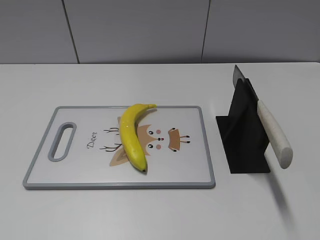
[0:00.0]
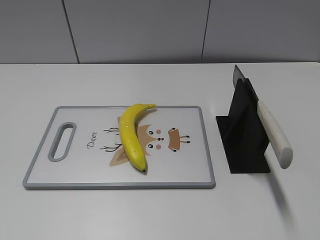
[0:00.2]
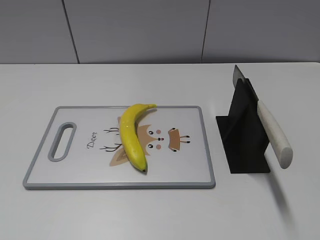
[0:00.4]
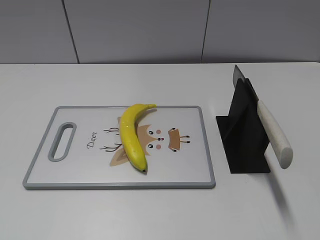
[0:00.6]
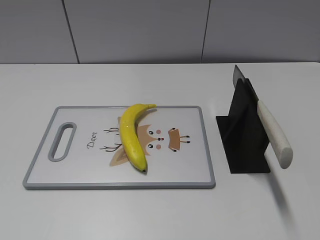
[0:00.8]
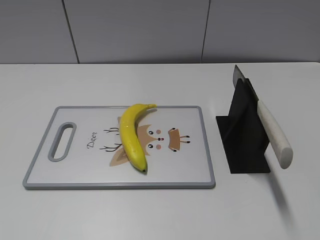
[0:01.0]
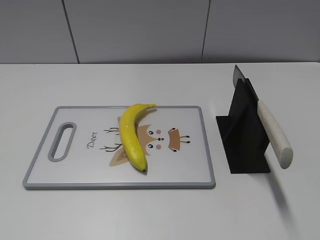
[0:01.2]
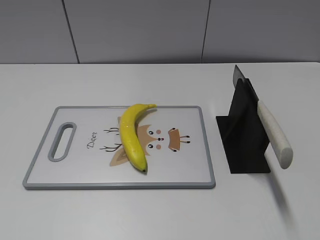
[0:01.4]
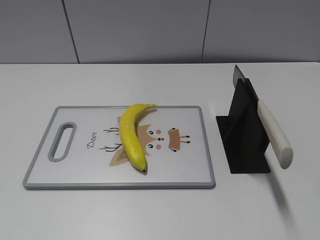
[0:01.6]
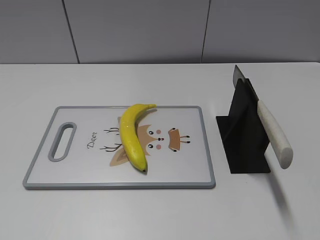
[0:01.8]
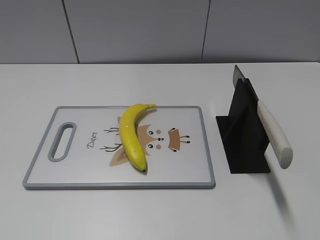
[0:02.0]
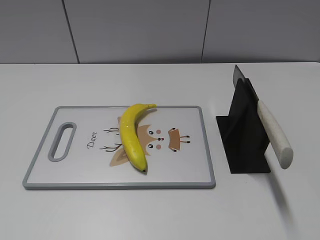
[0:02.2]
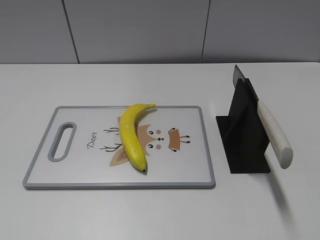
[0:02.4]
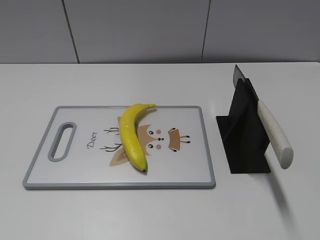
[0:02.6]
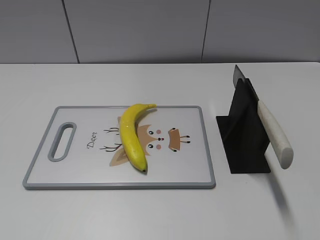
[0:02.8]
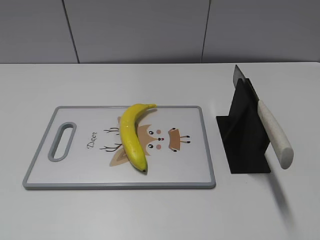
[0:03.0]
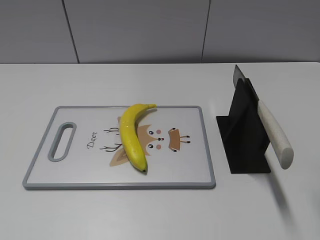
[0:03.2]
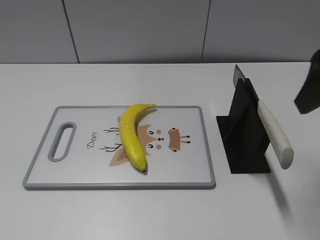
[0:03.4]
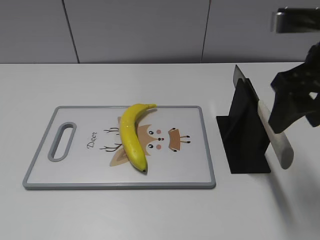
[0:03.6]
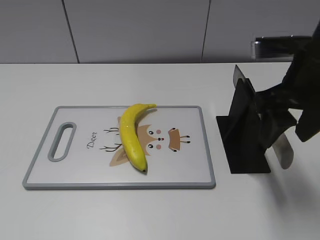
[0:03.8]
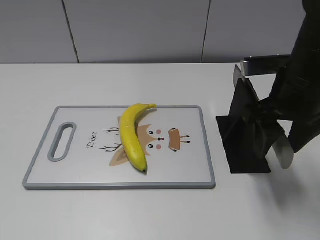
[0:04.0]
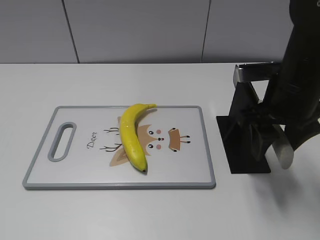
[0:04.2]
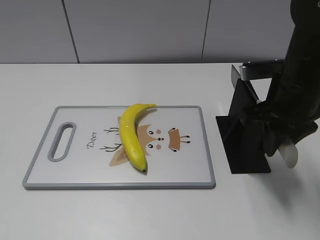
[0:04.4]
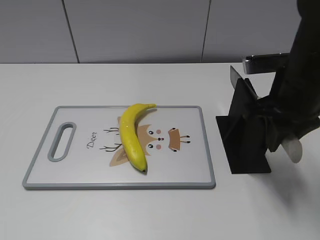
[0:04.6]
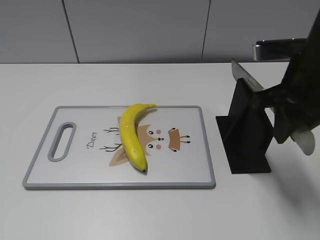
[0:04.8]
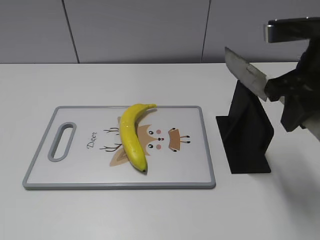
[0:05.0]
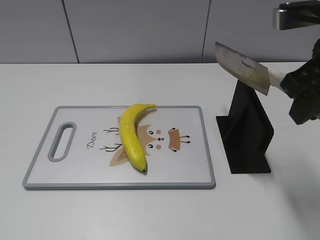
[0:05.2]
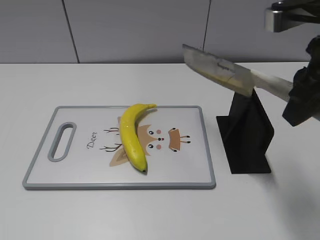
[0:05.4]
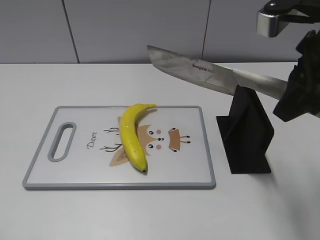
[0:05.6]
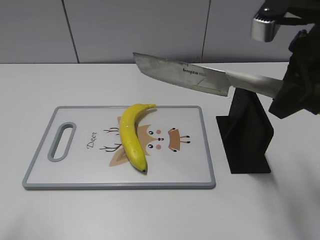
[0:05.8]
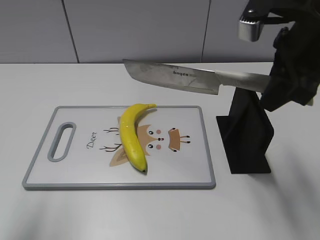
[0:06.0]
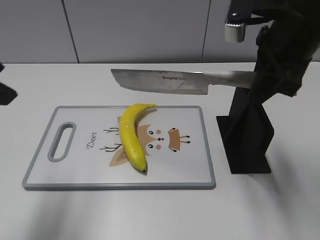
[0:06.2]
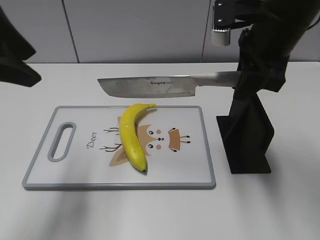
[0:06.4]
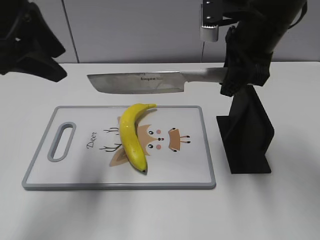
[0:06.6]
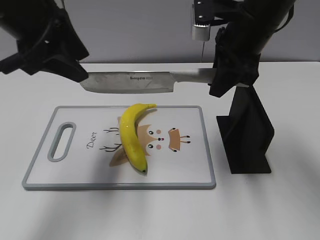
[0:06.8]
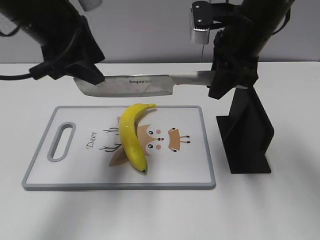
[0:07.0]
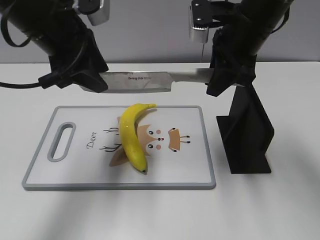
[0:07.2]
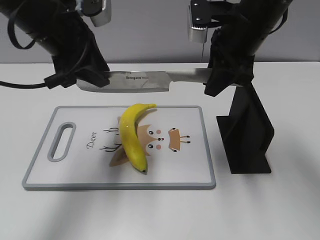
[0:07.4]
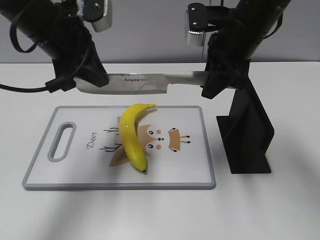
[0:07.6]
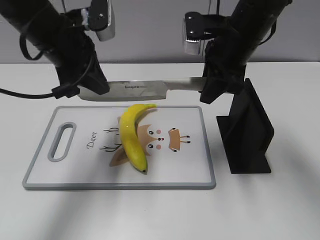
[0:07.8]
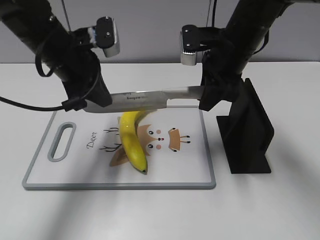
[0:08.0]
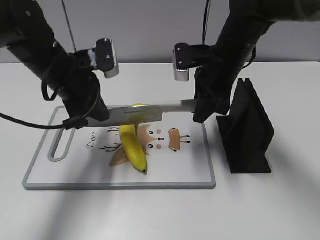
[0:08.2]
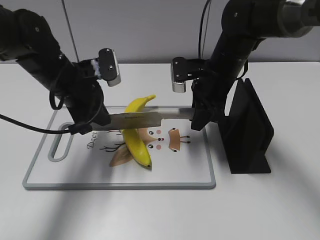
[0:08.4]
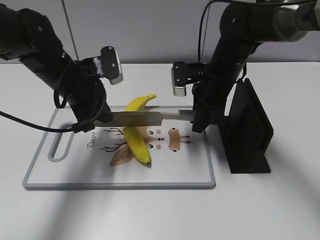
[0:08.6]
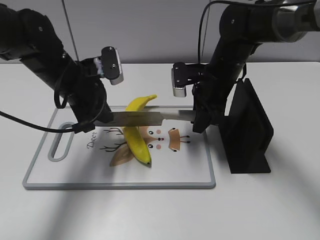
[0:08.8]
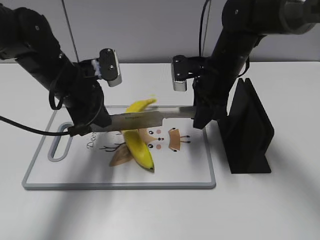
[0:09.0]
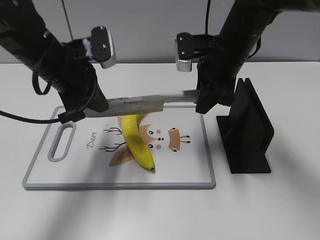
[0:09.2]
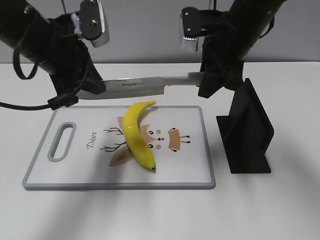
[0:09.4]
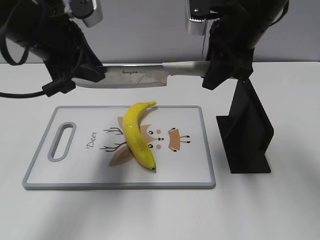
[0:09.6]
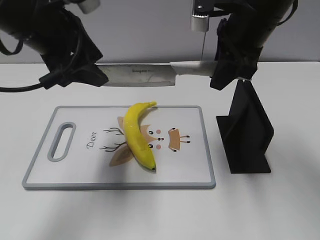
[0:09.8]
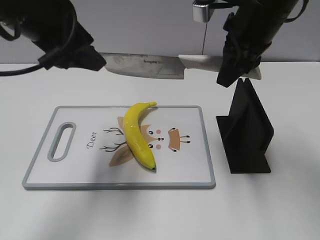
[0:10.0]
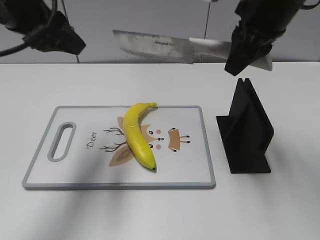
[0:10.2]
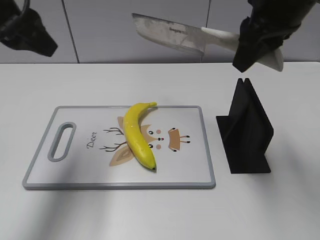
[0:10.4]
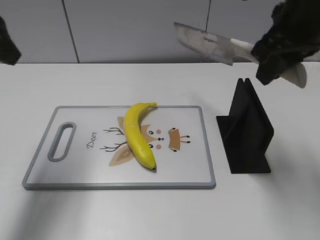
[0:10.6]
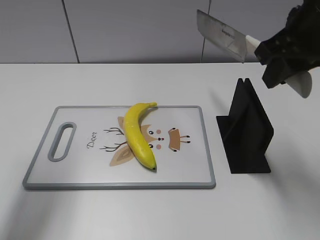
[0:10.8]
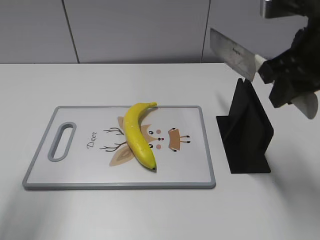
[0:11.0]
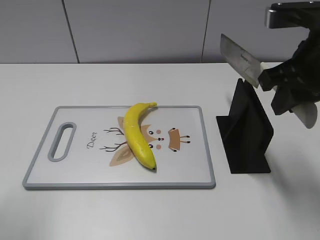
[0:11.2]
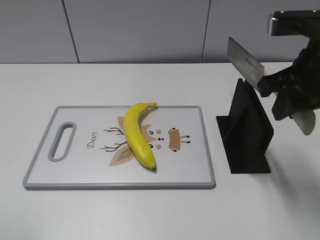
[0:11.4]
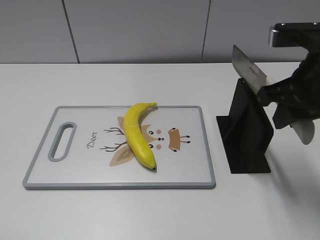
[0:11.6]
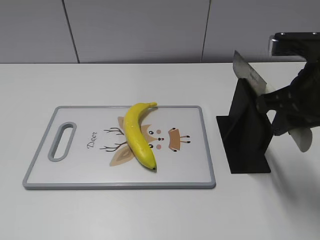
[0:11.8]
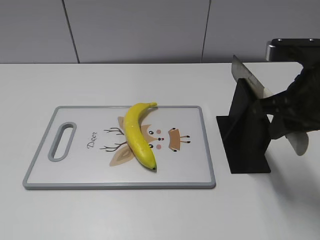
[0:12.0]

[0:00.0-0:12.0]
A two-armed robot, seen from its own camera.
Task of the whole recording: cut plastic banana.
Step, 0:00.0 to 0:05.4: Grab the knife handle with your right hand.
Step, 0:05.6 to 0:09.4: Lift the knife with your right hand.
Step, 0:09.6 to 0:10.6: Cut the banana with your right hand.
Step, 0:11.0 to 0:11.6: Lift the knife with your right hand.
0:03.0 to 0:04.4: The right gripper moves downward, forward and to the left, roughly 20 cm, and closes its fingers.
0:04.4 to 0:06.0: The left gripper is displaced forward by some 15 cm. Meanwhile the right gripper heads upward, covering about 10 cm.
0:06.0 to 0:07.6: The right gripper heads forward and to the left, covering approximately 10 cm; the left gripper travels forward and to the right by roughly 25 cm, and closes up.
0:07.6 to 0:09.0: Both grippers move downward, approximately 10 cm.
0:09.0 to 0:10.4: The left gripper travels upward by approximately 15 cm, and opens its fingers. The right gripper is displaced upward and backward by roughly 20 cm.
0:10.4 to 0:12.0: The left gripper shifts some 25 cm backward. Meanwhile the right gripper is displaced downward and backward by some 10 cm.

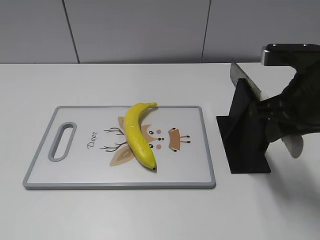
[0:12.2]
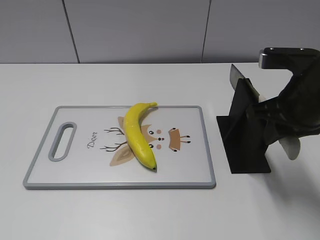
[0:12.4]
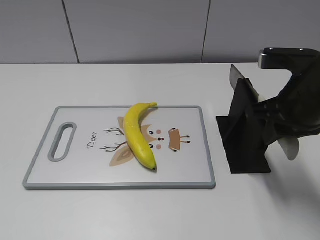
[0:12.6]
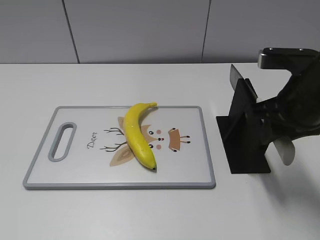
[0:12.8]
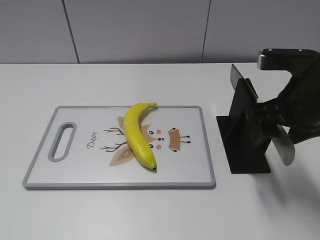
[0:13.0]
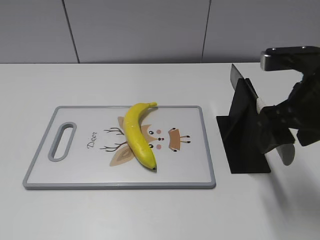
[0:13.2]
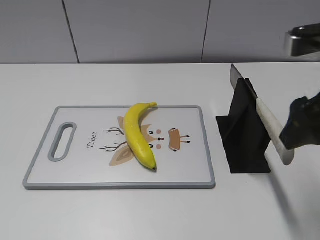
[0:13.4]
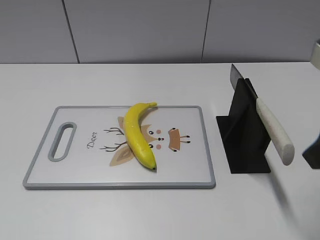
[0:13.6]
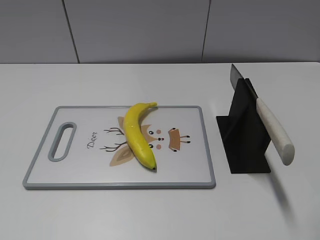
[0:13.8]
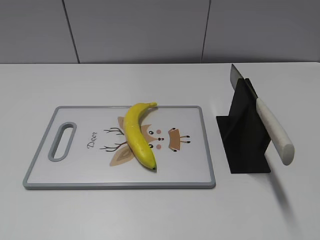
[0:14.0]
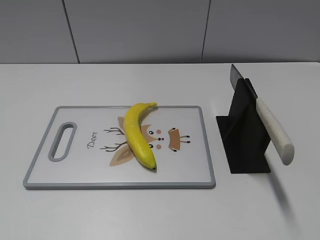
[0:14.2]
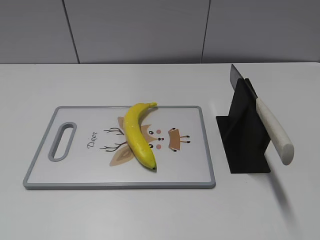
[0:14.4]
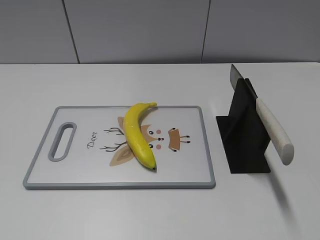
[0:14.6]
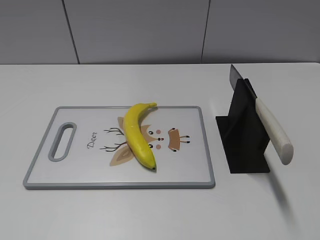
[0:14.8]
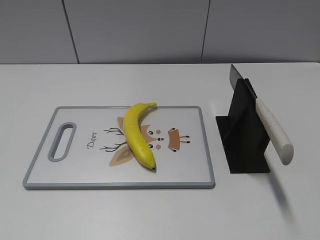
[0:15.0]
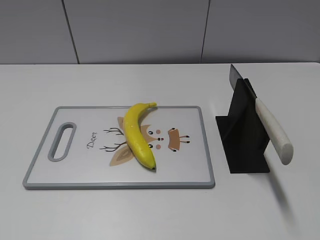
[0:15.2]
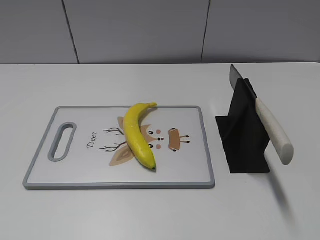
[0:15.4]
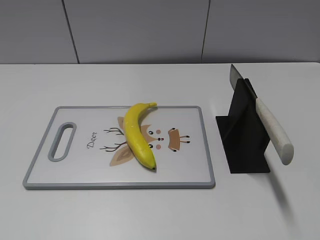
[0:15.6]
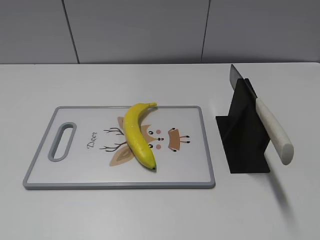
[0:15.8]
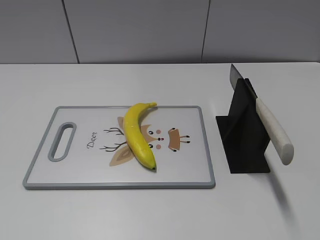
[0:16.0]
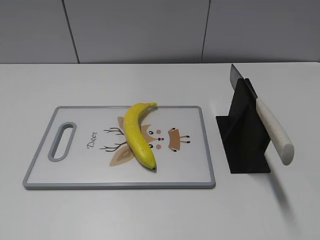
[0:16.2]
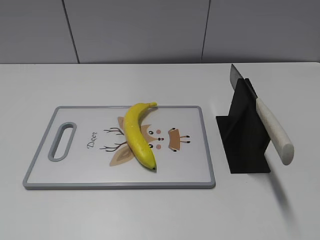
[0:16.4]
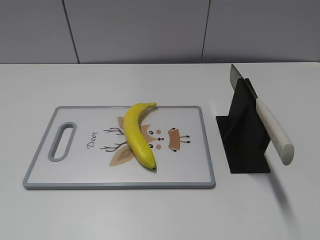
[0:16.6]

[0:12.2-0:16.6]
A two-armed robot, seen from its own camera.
Task of the whole recording: cut plastic banana.
Step, 0:12.2 to 0:16.0: Place the knife on the storage rack with your right hand.
0:12.2 to 0:13.6: The right gripper shifts about 10 cm backward and upward, and opens.
0:13.6 to 0:15.2: The right gripper shifts approximately 20 cm backward.
